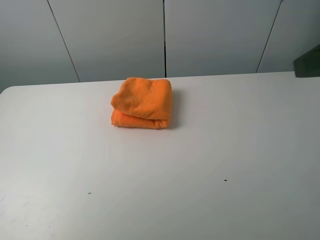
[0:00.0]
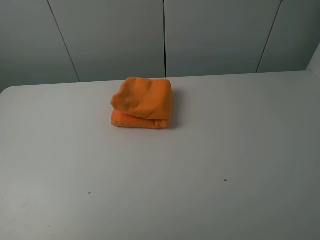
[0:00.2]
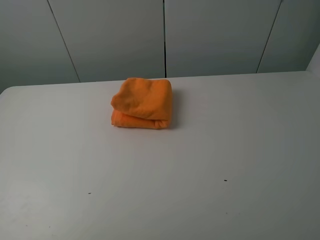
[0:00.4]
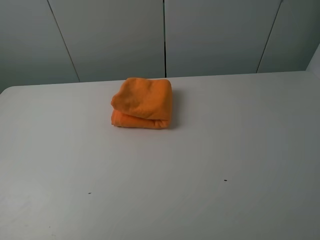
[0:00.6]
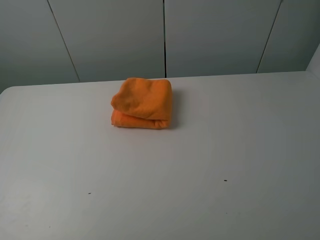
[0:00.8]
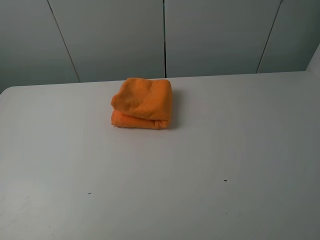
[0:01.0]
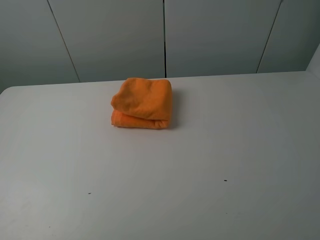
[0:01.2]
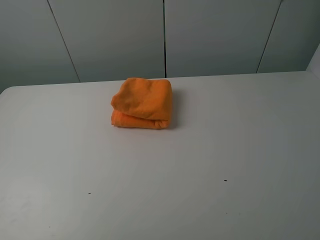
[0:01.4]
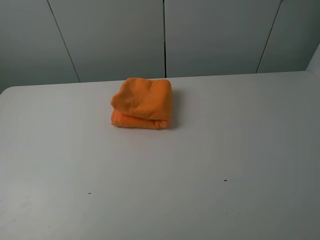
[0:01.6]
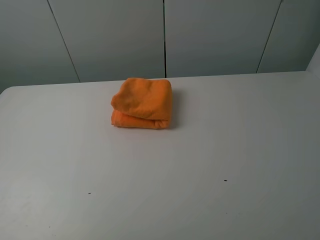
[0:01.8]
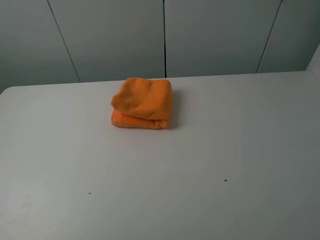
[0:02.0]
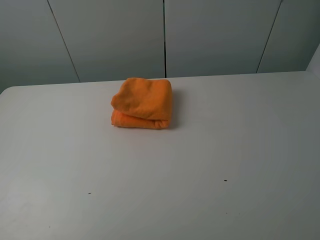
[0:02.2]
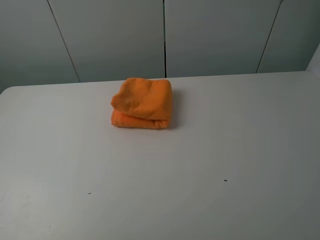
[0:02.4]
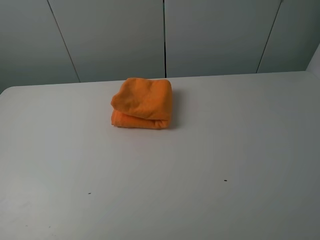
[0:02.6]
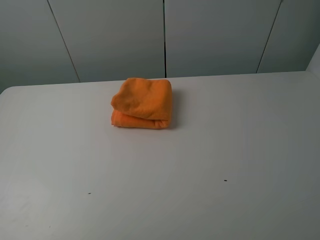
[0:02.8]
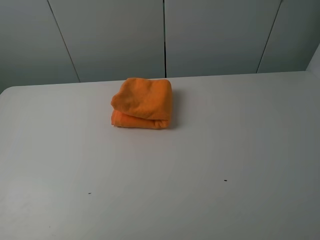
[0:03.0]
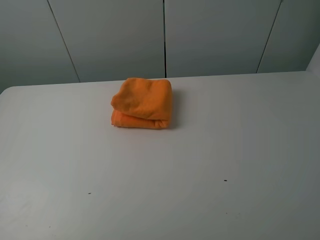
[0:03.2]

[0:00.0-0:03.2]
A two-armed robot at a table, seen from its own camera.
Task of the whole recording: fold the towels on the table.
0:00.0 to 0:01.6: The grippers both shift backward and downward by about 15 cm.
